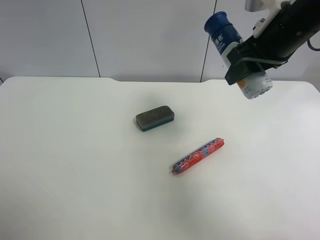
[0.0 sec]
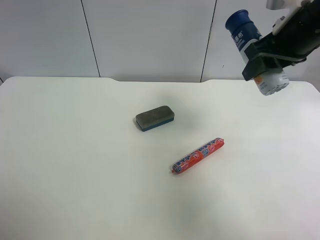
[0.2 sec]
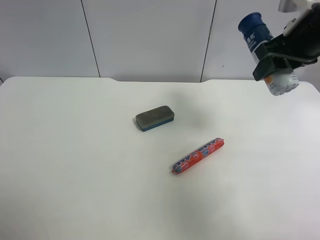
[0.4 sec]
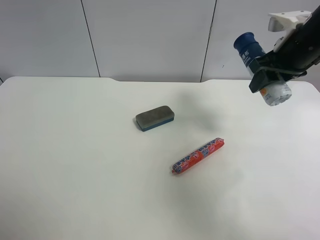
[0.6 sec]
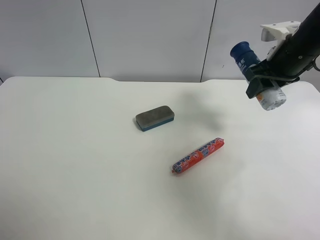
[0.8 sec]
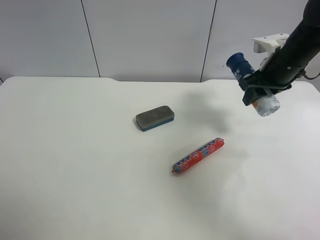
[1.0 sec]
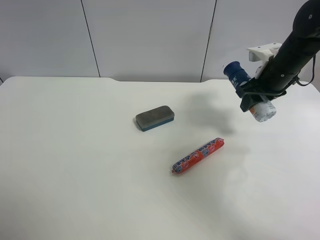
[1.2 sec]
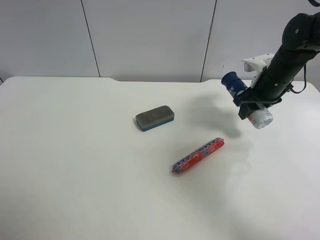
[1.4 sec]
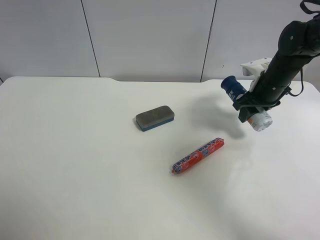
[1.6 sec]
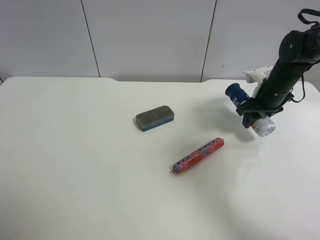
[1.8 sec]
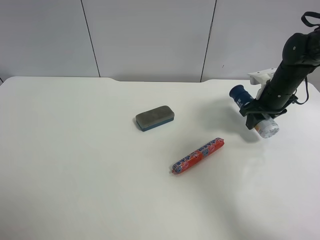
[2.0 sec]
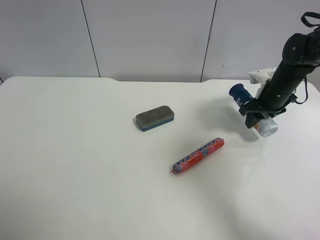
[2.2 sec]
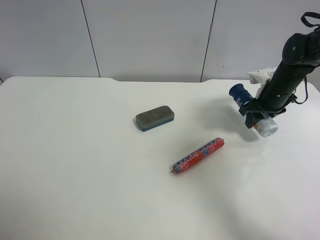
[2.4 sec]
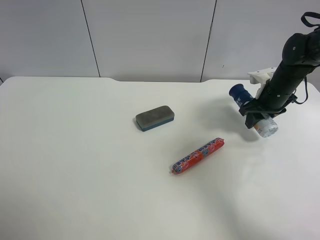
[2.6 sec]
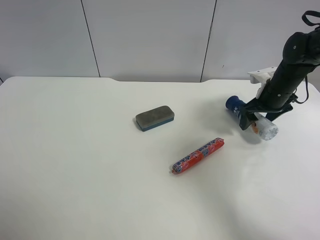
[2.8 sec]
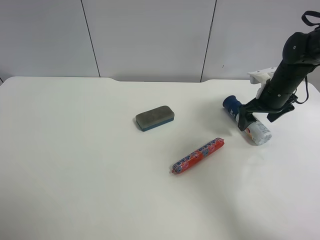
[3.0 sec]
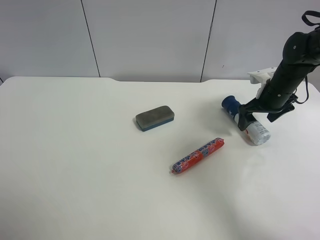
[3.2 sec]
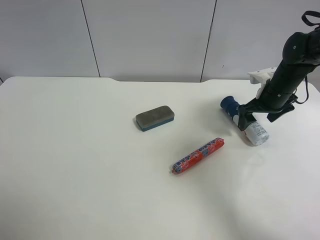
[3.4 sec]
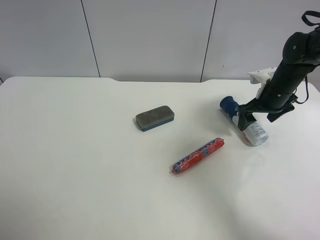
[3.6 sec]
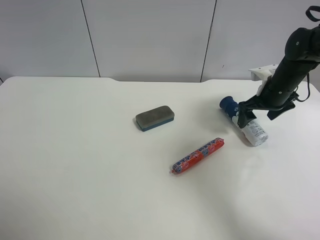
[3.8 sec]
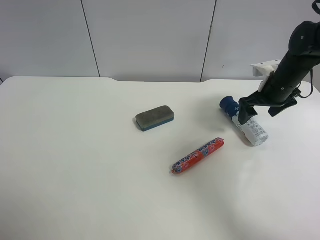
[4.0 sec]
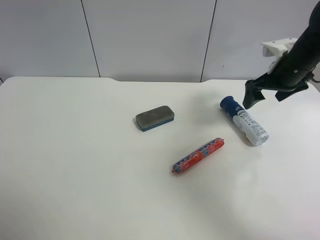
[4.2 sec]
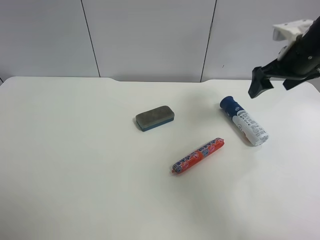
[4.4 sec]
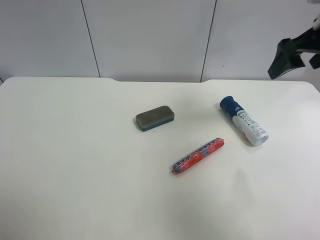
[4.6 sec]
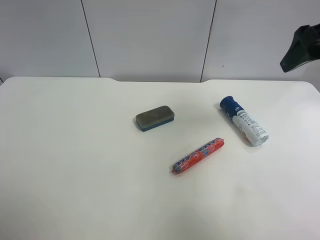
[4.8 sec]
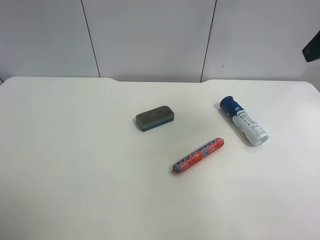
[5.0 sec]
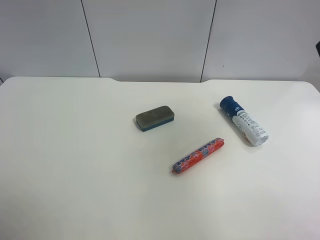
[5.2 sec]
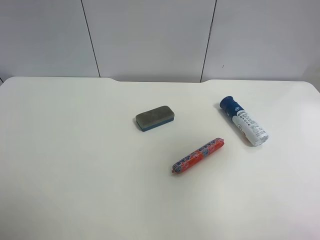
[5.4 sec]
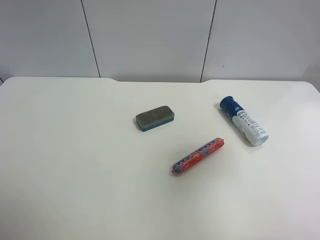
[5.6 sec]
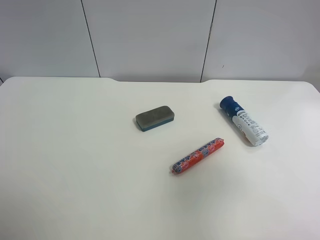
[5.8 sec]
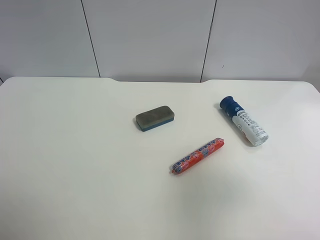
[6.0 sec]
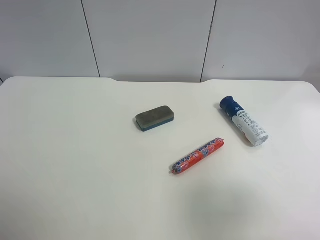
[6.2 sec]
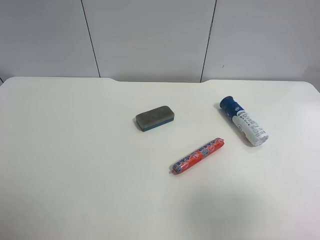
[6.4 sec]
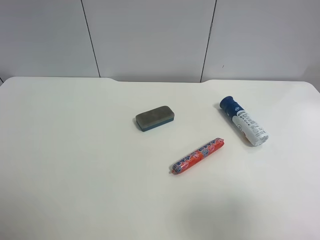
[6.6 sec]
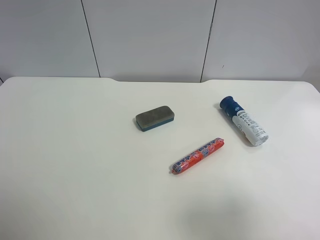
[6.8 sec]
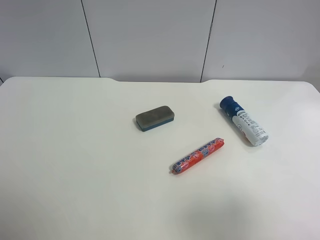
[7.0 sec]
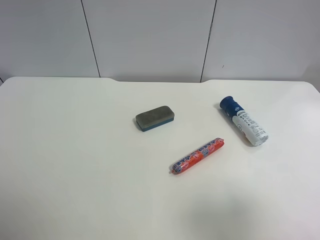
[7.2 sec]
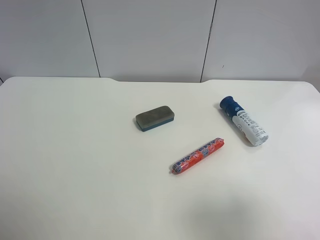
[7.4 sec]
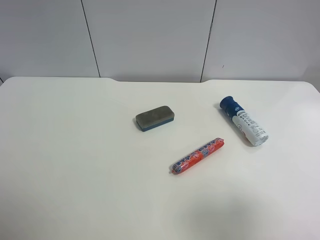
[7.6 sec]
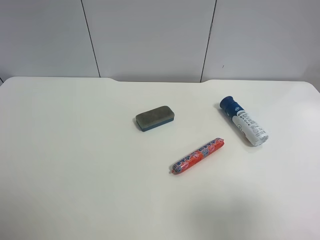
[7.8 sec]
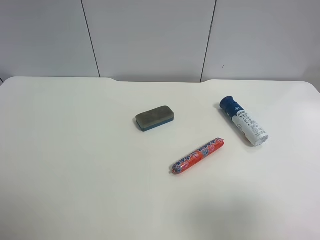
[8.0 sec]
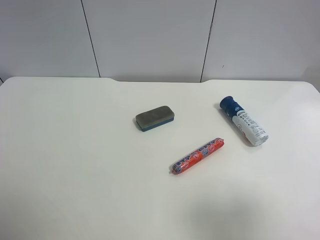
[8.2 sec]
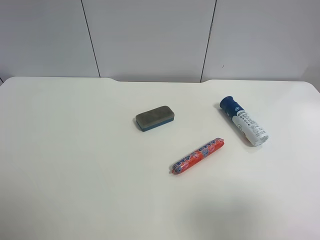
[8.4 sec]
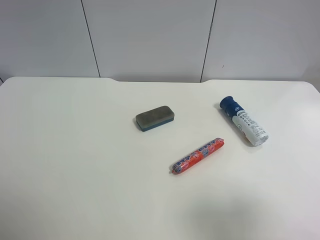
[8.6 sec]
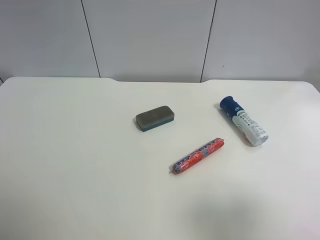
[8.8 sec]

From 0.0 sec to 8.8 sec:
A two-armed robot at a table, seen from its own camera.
Task of the whole recording: use the left gripper to pick up the item and transfer it from the left gripper to the right gripper.
From 0.0 sec to 1.4 sec: The right gripper goes roughly 15 cm downward, forward and to the right.
From 1.4 sec to 3.0 sec: The right gripper opens up.
From 3.0 sec to 4.4 sec: The right gripper is displaced upward by some 15 cm.
From 4.4 sec to 5.8 sec: The right gripper shifts about 25 cm backward.
From 5.8 sec to 7.4 sec: The right gripper is displaced backward and downward by approximately 10 cm.
From 7.4 sec to 8.8 sec: Both grippers stay put.
